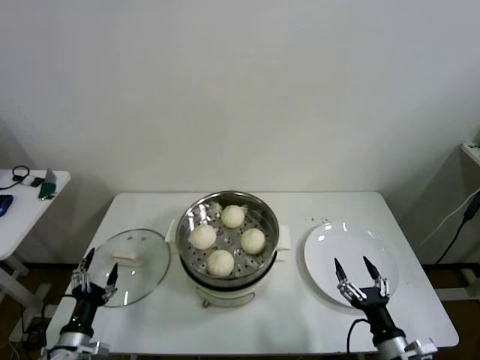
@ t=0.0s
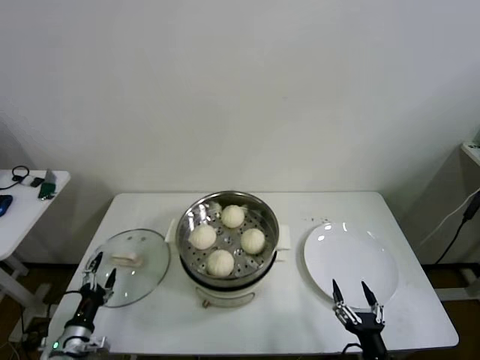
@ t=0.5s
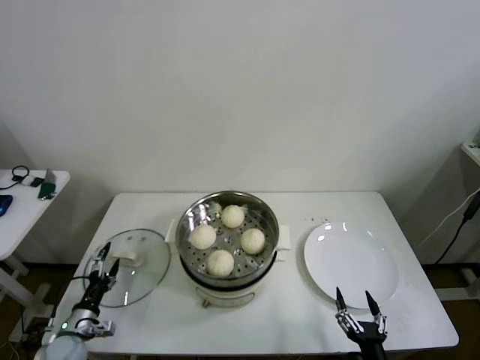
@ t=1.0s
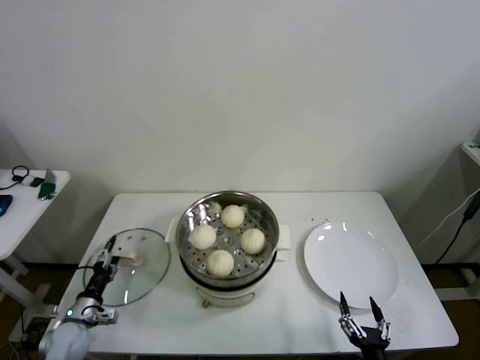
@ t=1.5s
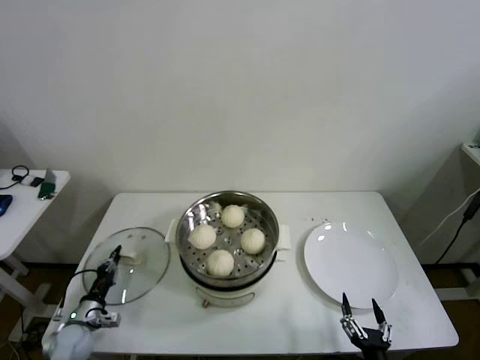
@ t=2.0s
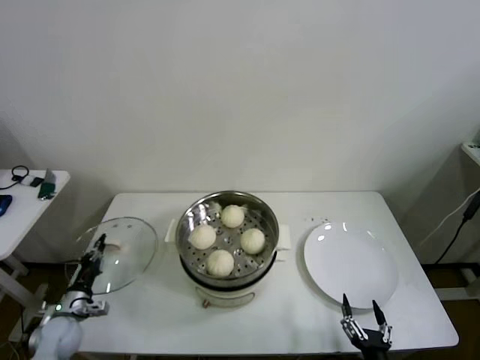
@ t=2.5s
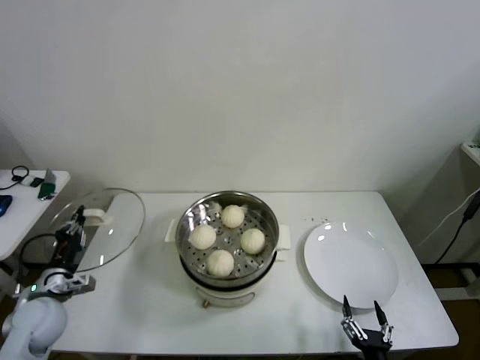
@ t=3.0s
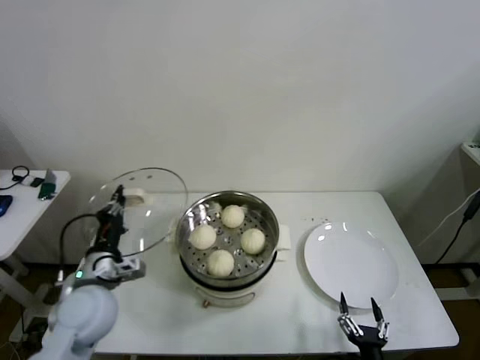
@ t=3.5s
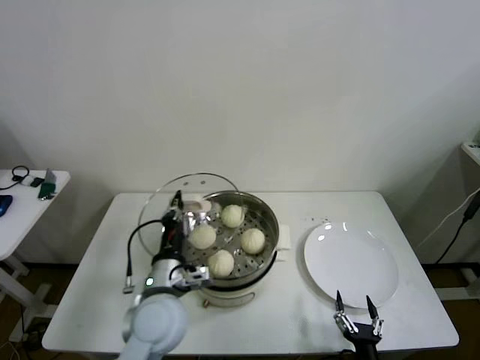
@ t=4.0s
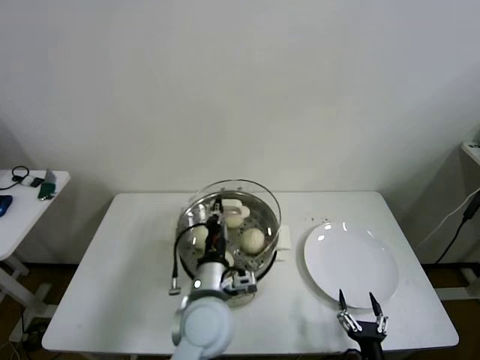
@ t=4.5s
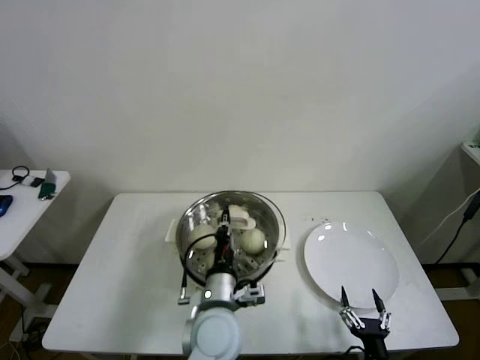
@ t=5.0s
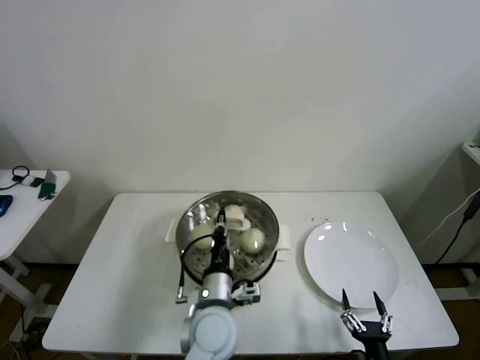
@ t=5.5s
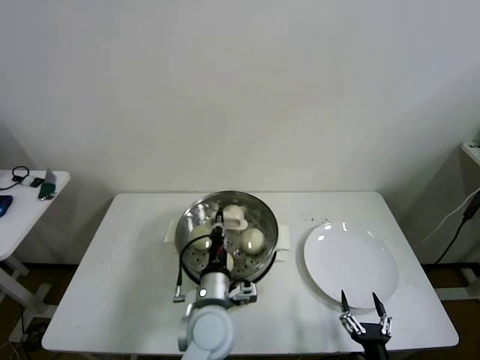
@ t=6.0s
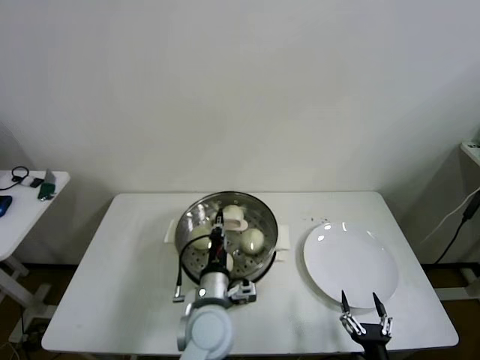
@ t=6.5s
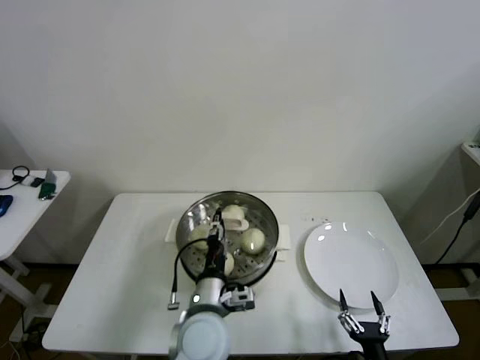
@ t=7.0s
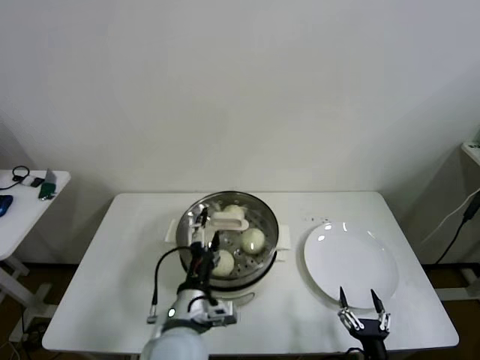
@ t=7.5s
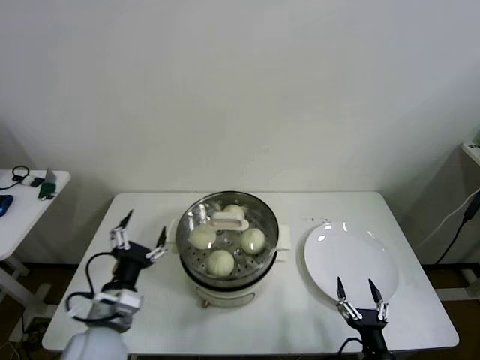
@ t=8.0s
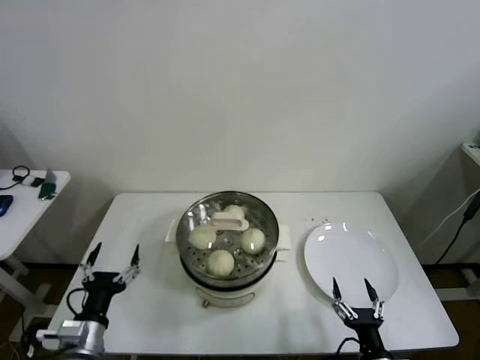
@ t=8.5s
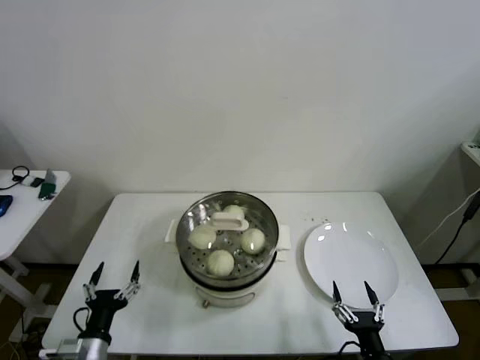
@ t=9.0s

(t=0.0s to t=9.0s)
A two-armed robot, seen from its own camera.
Step, t=0.0s - t=2.0s: Grasp the pot lid with left gripper.
Step, t=2.5s - t=6.5s: Place the pot lid on the steamer with left gripper.
t=0.0s - t=2.0s: The right gripper heads backward and downward, covering roughly 10 cm. Meanwhile the left gripper is displaced forward, downward and to the left by approximately 15 cm, and closes up.
t=2.0s - t=4.5s: The left gripper goes about 40 cm to the right and upward.
t=4.5s - t=7.0s: The left gripper opens.
t=7.0s - t=9.0s: The left gripper shifts some 25 cm to the left, and opens.
